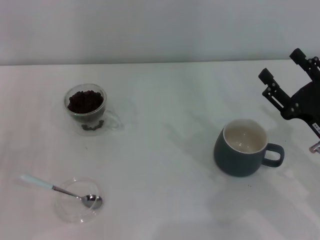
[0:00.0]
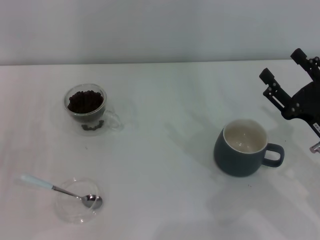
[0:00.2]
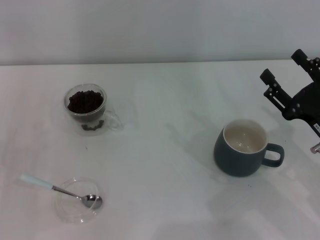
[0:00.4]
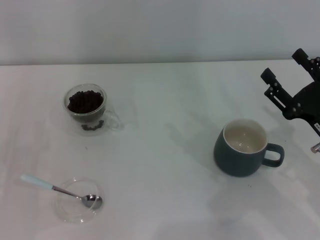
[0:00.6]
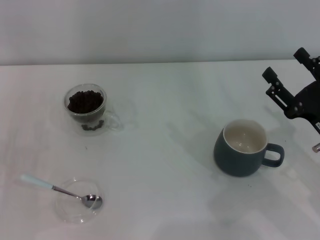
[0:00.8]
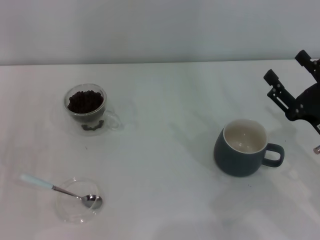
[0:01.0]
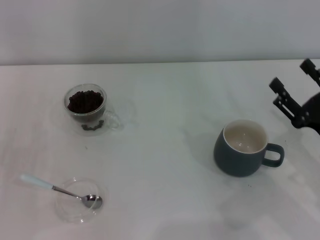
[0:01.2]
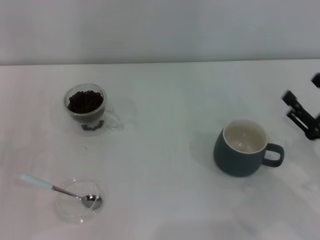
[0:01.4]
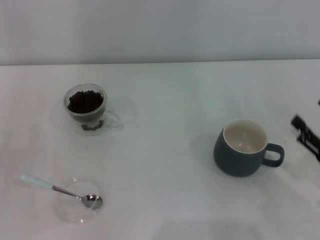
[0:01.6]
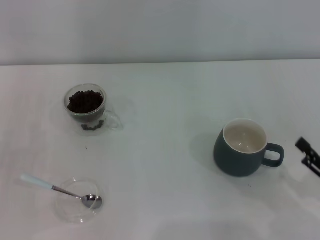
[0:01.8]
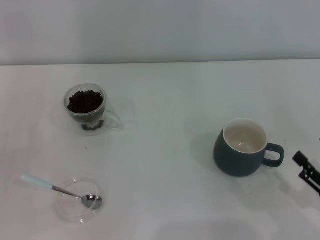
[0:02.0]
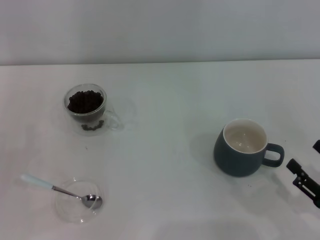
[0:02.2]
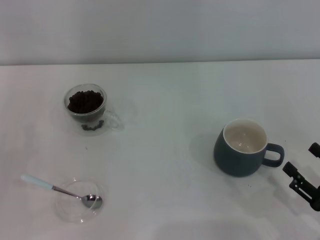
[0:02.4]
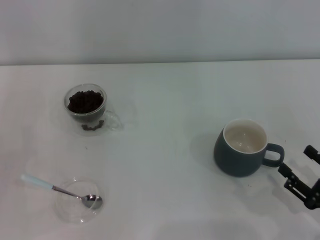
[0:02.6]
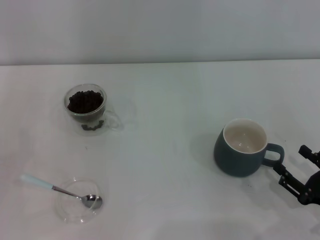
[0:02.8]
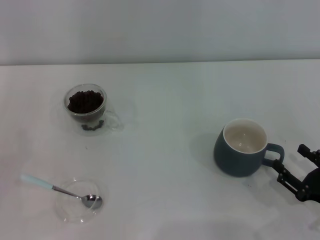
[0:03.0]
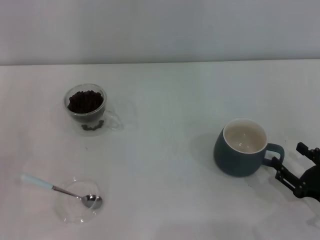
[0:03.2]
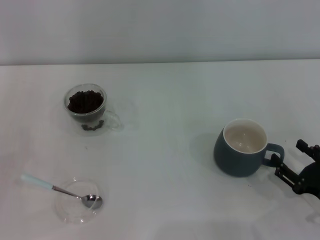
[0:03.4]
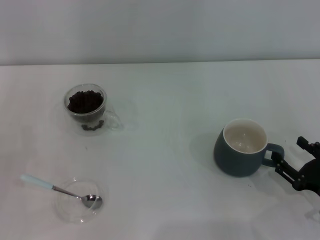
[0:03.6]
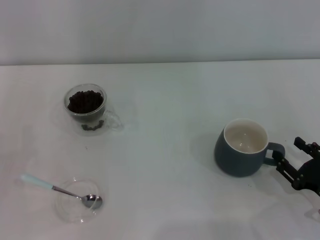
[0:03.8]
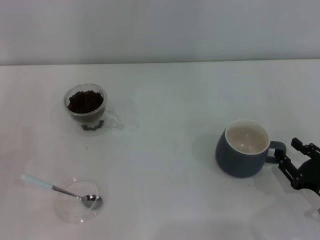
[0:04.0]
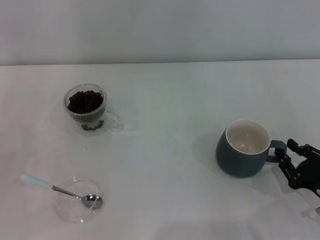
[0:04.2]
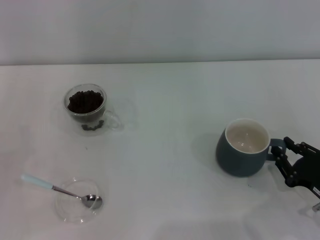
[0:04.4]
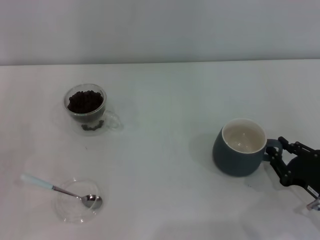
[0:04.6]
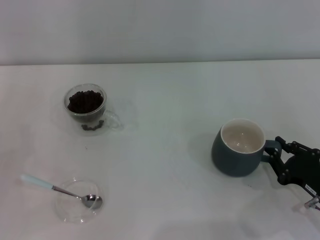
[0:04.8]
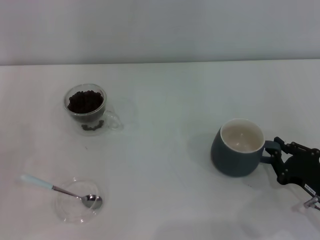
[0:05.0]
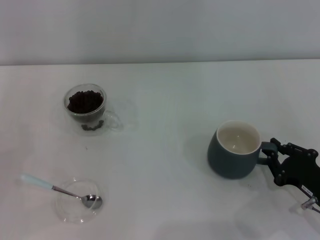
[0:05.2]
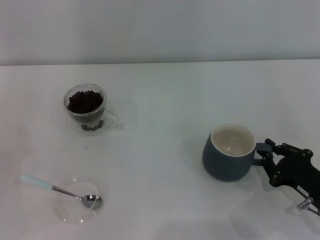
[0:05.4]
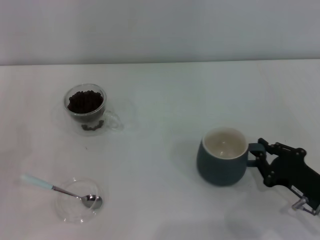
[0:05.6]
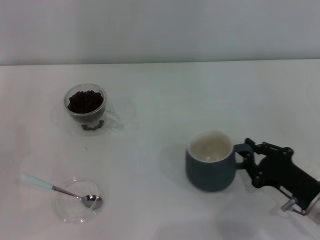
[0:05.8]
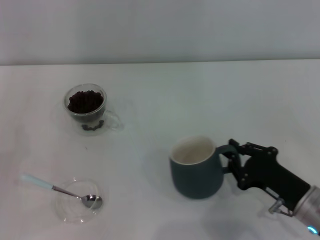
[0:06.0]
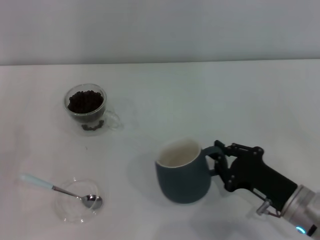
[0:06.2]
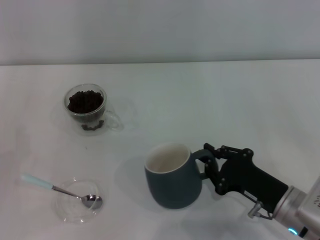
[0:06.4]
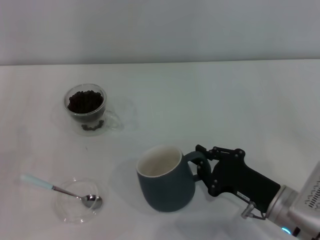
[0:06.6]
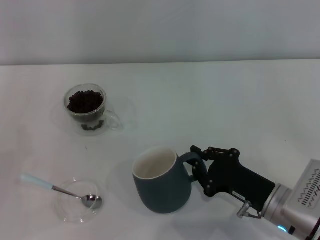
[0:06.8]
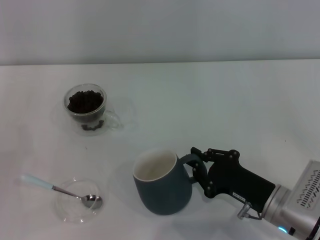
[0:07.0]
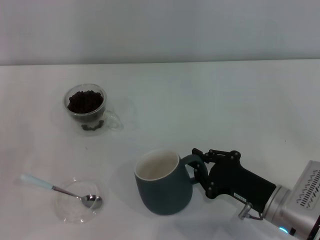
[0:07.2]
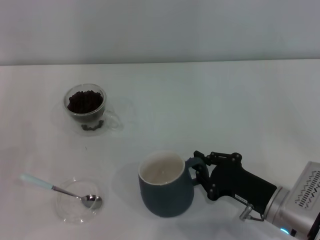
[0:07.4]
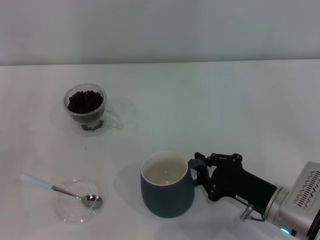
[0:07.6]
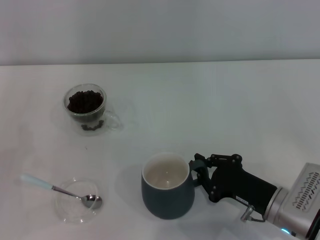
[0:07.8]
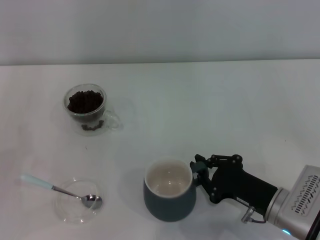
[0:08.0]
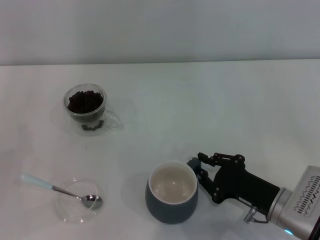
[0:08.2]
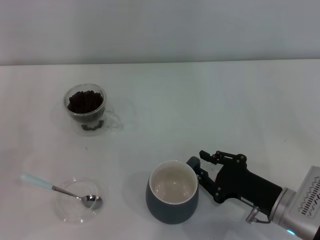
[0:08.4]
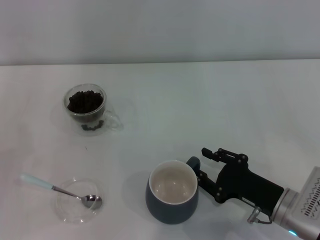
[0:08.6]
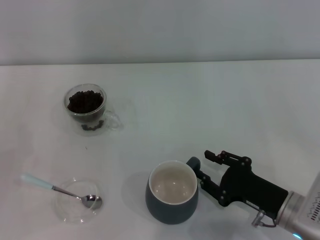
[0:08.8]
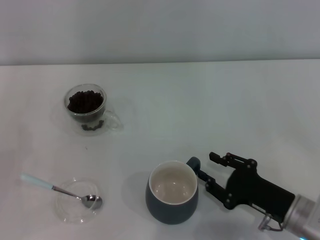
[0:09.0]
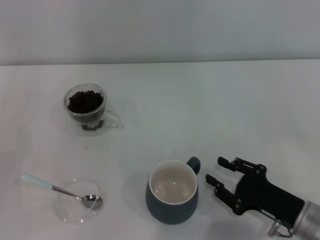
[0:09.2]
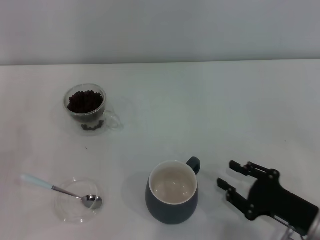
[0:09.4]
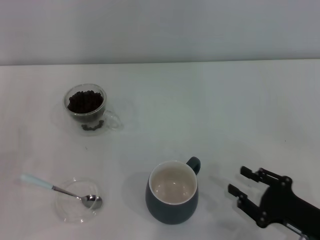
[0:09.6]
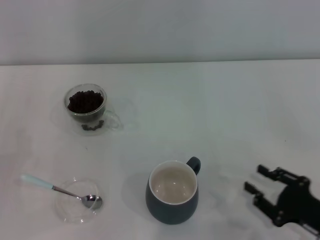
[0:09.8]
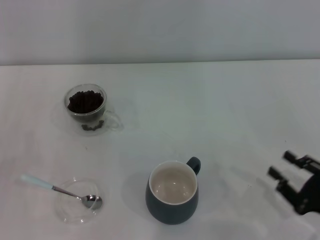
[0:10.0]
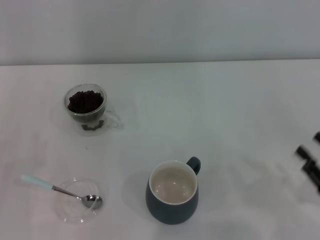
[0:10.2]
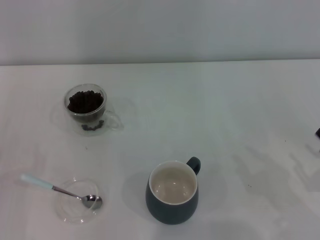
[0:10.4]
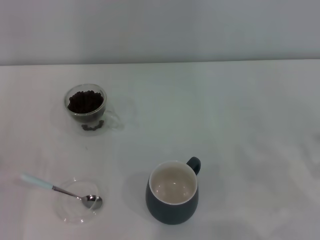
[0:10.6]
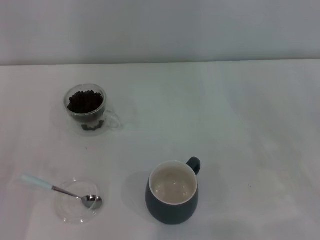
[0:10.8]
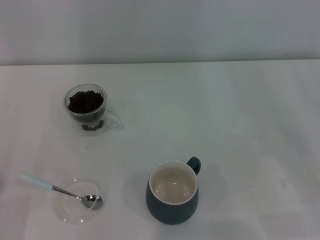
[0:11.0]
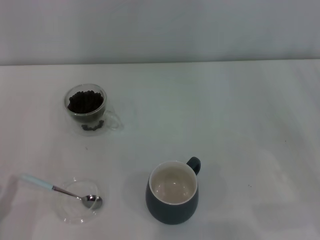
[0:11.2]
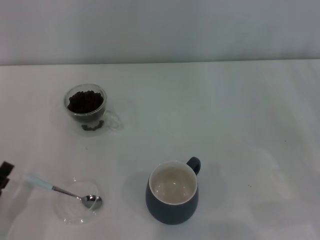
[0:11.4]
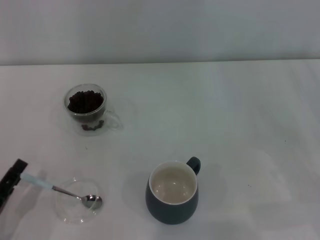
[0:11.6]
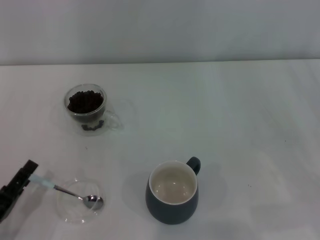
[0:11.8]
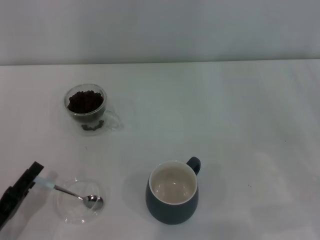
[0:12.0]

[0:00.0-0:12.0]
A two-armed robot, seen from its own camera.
Task of the whole recording: Use a blue spoon to take out the coffee beans from the glass and pour them into the gray cup.
Step, 0:00.0 to 0:09.2: Move the cup to the center of view with the left gripper.
0:00.0 to 0:01.6: The right gripper shifts approximately 5 cm to the right and backward.
0:01.6 to 0:03.0: The right gripper changes place by roughly 5 cm.
0:03.0 to 0:04.4: The right gripper closes its fingers.
0:04.4 to 0:06.0: The right gripper heads to the left, covering about 5 cm.
0:06.0 to 0:07.6: There are only small adjustments of the grippers.
0:07.6 to 0:09.0: The right gripper opens.
0:09.0 to 0:10.4: The right gripper moves to the right and backward, about 10 cm.
0:10.4 to 0:12.0: The left gripper shifts some 5 cm to the right.

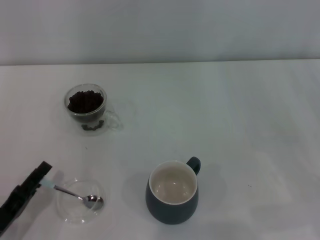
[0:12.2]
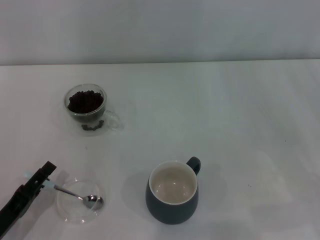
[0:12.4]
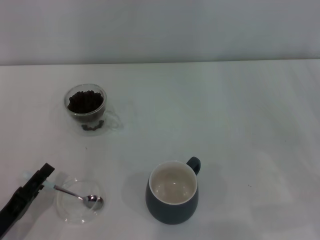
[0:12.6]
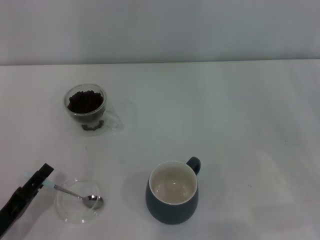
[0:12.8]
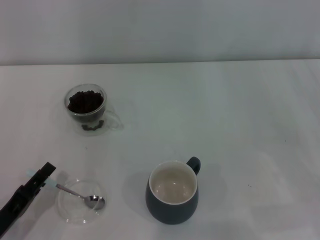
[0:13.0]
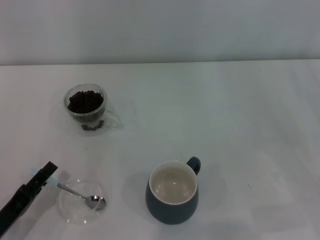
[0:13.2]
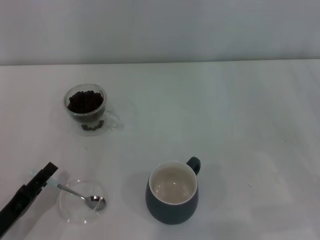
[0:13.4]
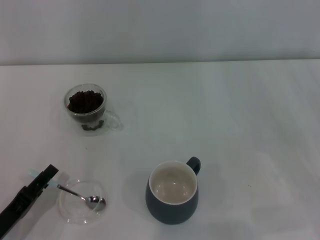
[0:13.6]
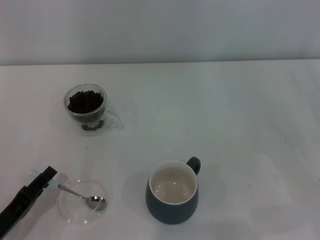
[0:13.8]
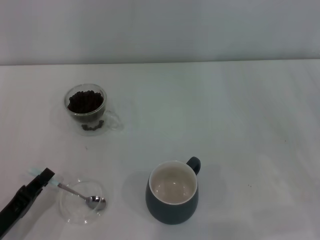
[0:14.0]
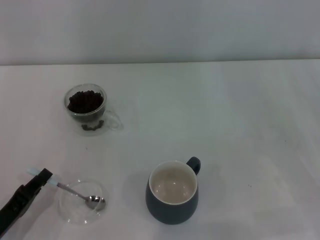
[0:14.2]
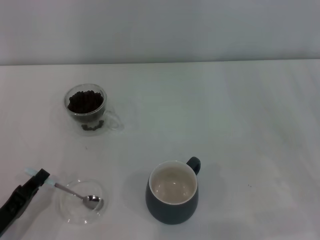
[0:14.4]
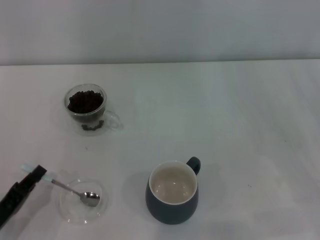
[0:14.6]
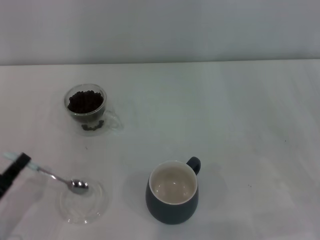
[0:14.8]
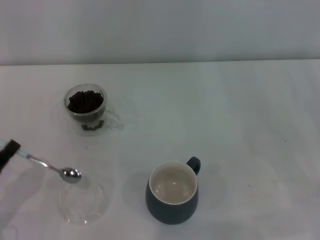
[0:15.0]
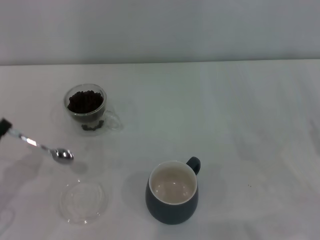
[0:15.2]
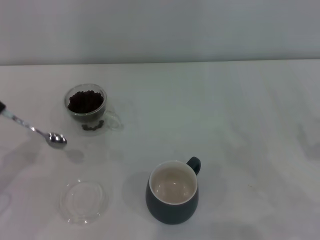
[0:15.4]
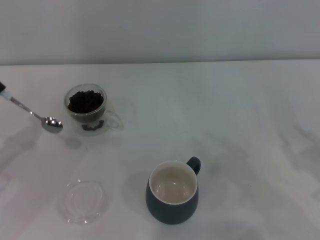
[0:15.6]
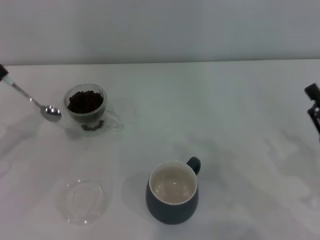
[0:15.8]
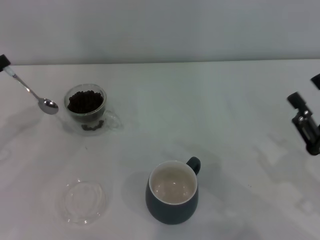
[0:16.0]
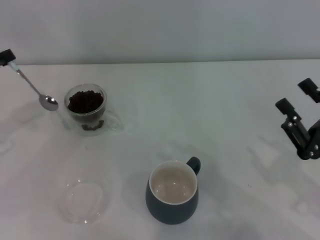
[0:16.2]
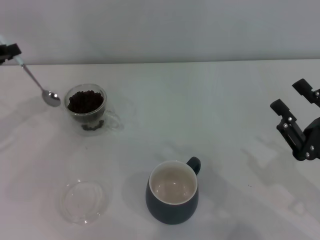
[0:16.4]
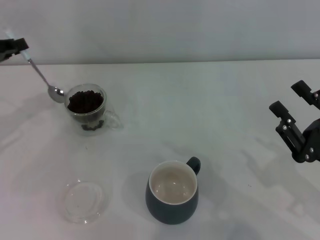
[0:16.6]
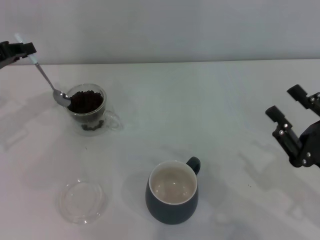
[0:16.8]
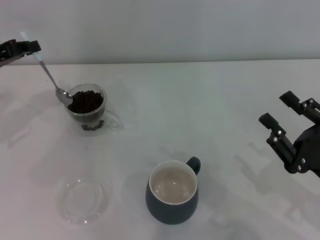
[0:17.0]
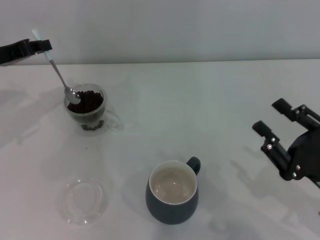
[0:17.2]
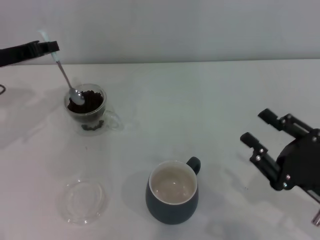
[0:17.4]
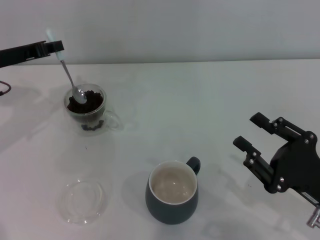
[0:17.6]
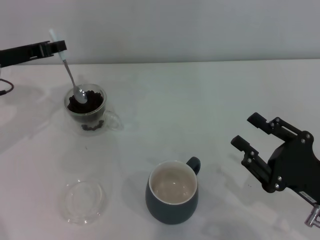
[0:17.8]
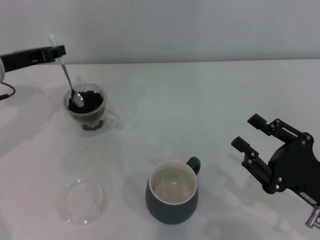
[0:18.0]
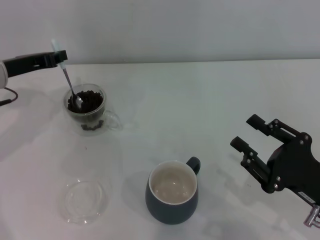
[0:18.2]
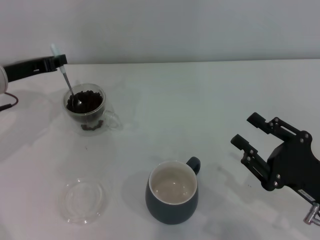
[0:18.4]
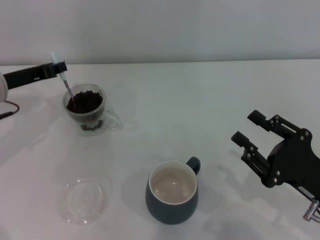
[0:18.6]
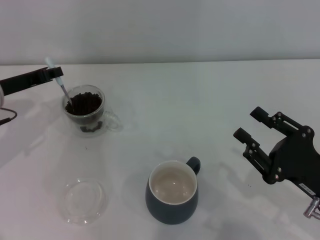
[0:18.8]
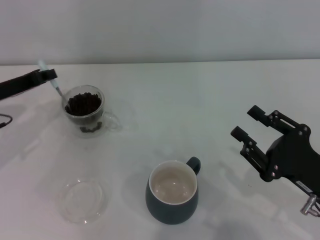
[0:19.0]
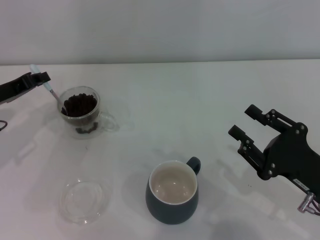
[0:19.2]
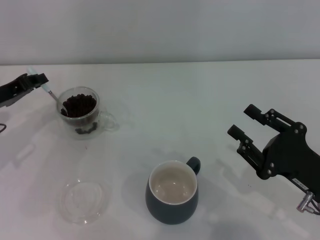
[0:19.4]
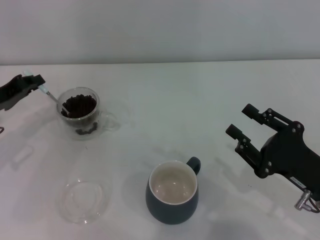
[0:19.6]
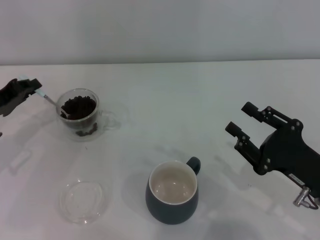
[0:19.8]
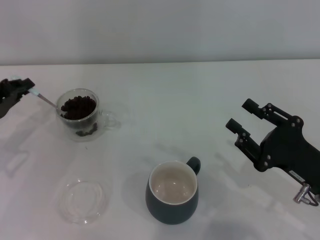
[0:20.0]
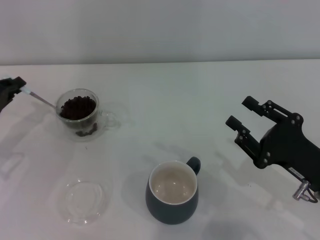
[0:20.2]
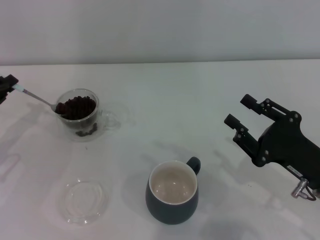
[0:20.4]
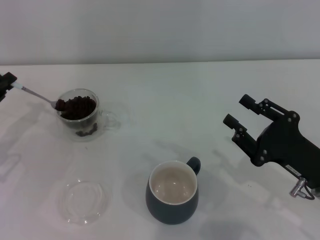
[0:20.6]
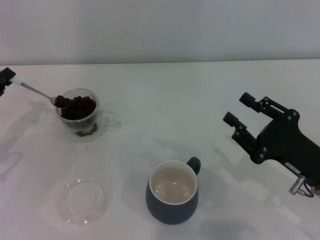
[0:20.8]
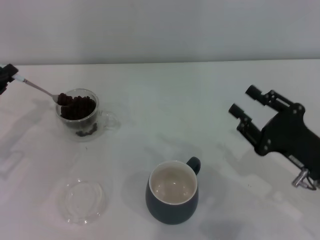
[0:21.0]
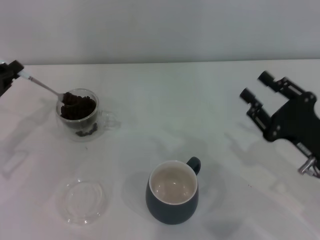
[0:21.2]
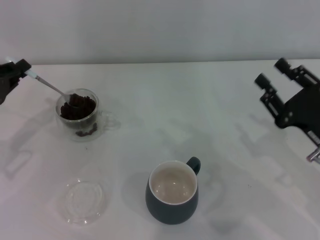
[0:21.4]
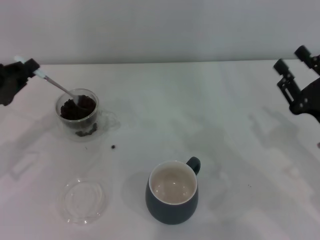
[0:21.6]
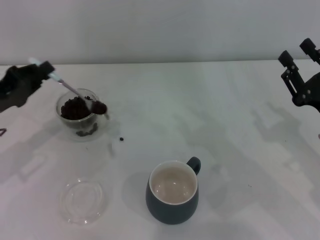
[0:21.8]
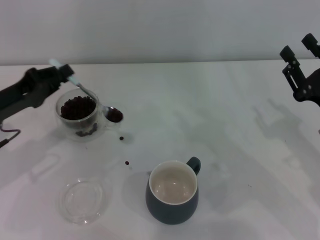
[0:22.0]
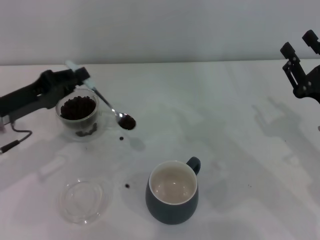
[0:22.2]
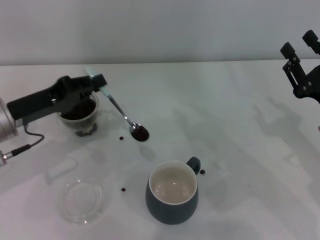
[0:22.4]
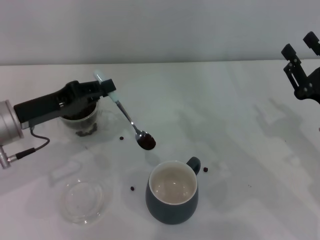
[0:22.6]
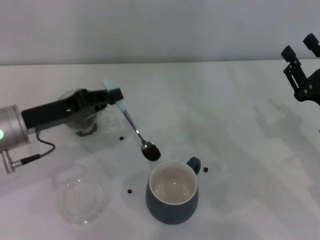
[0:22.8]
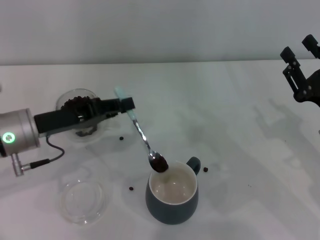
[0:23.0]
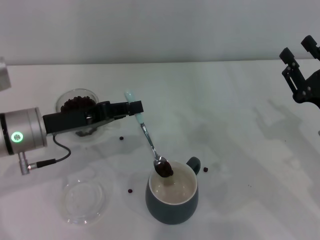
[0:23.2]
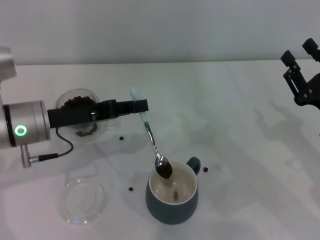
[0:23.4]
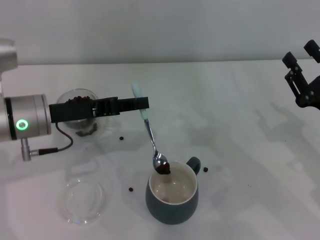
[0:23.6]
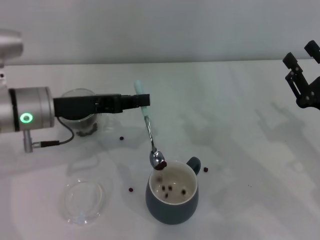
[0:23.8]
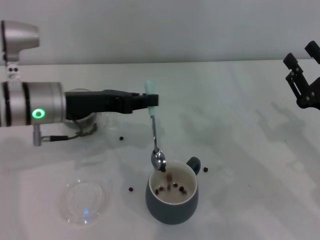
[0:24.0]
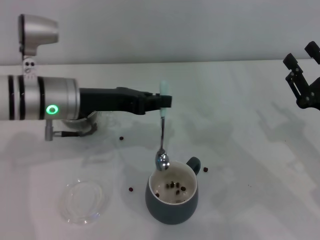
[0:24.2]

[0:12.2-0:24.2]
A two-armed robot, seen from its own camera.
Task of the whole recording: Use a blue spoon to take out the coffee beans from the glass and pour them into the gray cup.
Step, 0:12.2 to 0:15.0: Pick up the spoon with the right gripper.
0:12.2 to 0:13.8: The two grippers keep their place.
0:13.8 to 0:15.2: The left gripper moves upward, some 5 cm, and closes.
0:15.2 to 0:16.6: The left gripper shifts approximately 20 cm forward and upward. Meanwhile the right gripper shifts approximately 5 cm to the left.
0:16.6 to 0:18.2: The left gripper heads to the right, covering some 5 cm.
0:18.2 to 0:19.8: The left gripper travels backward and downward by some 10 cm.
0:19.8 to 0:21.2: The grippers move only a little.
0:21.2 to 0:22.6: The left gripper moves to the right, some 10 cm.
0:22.6 to 0:24.2: The left gripper heads to the right, covering some 10 cm.
